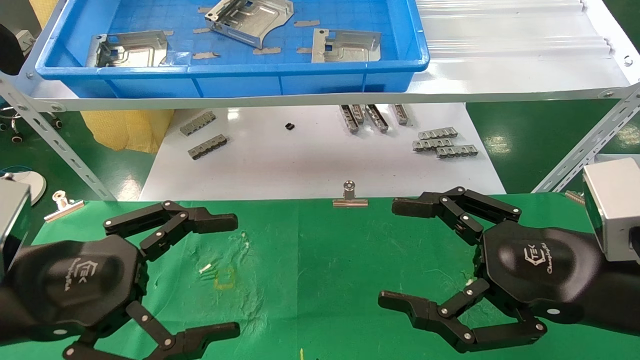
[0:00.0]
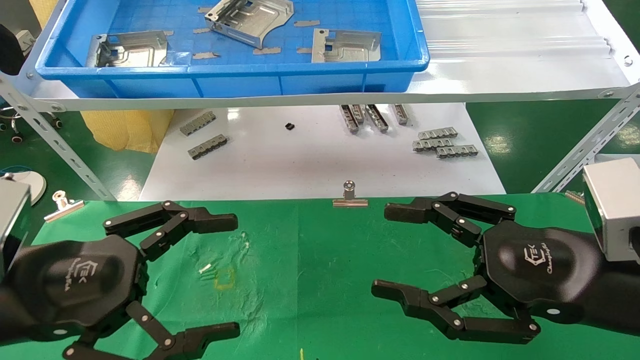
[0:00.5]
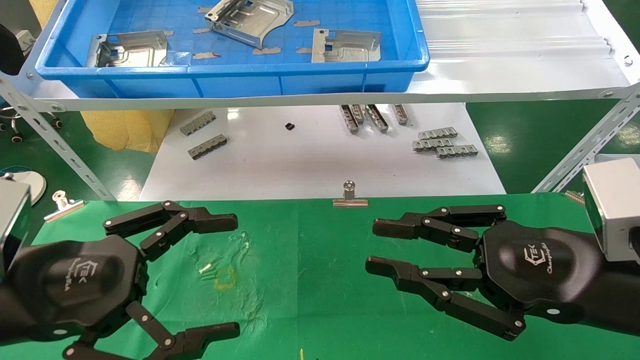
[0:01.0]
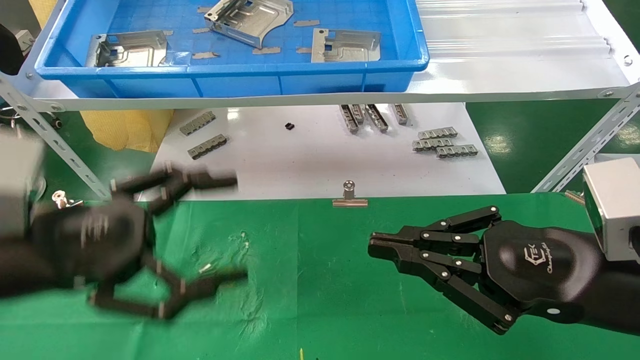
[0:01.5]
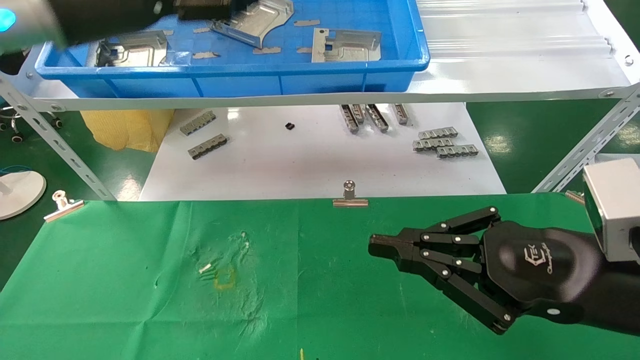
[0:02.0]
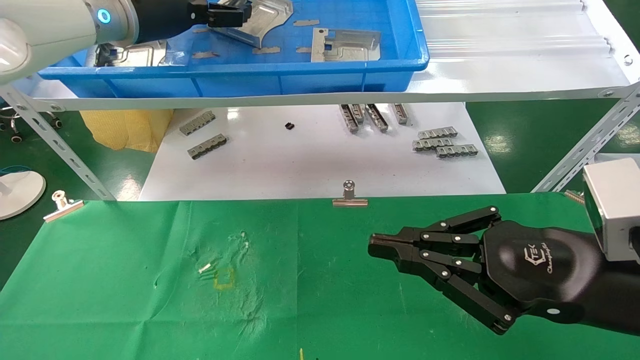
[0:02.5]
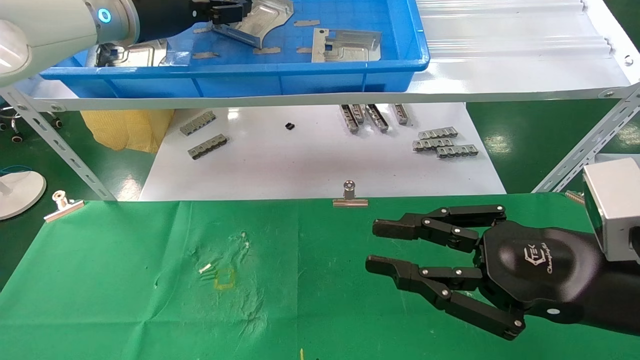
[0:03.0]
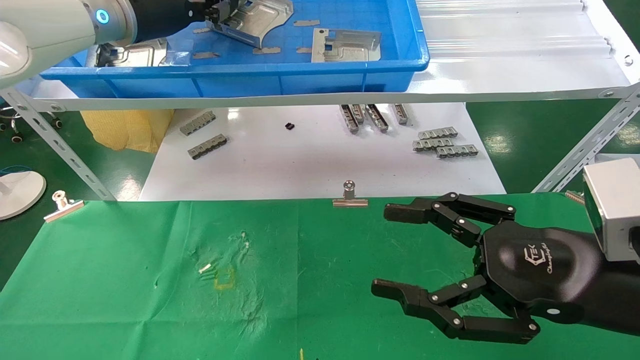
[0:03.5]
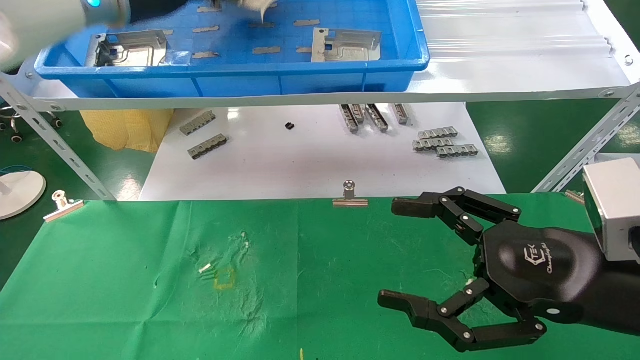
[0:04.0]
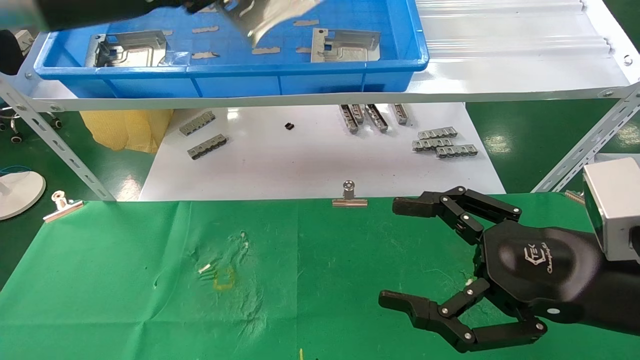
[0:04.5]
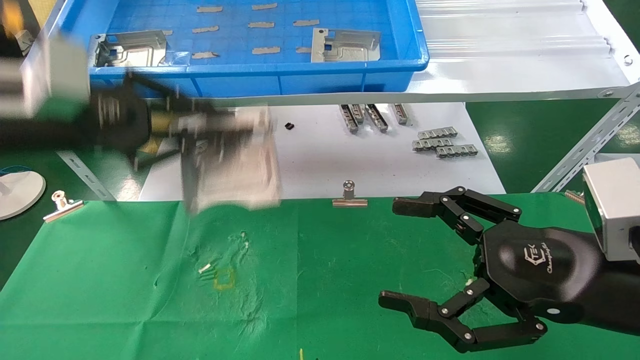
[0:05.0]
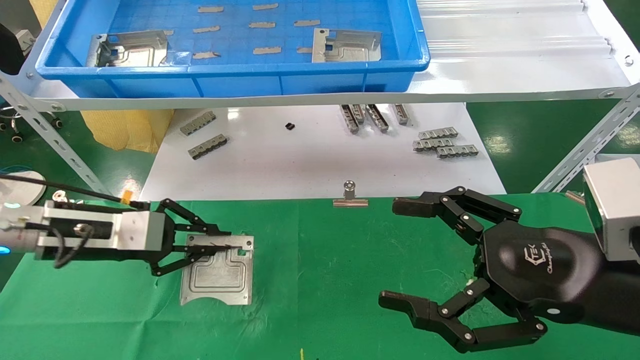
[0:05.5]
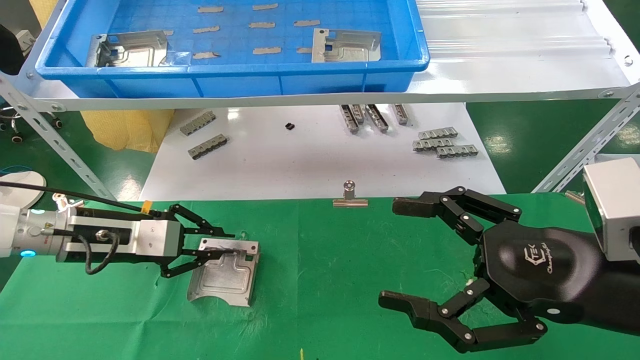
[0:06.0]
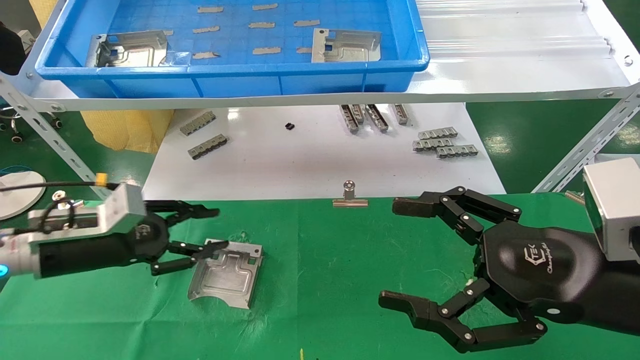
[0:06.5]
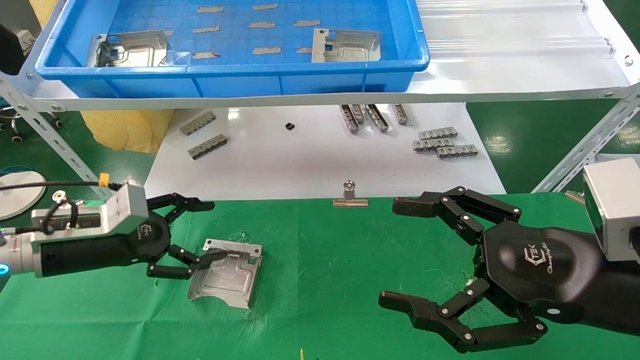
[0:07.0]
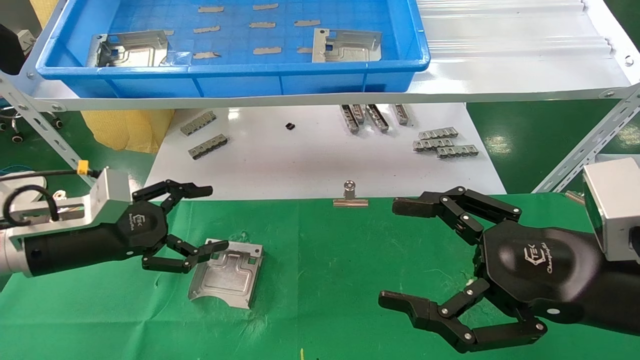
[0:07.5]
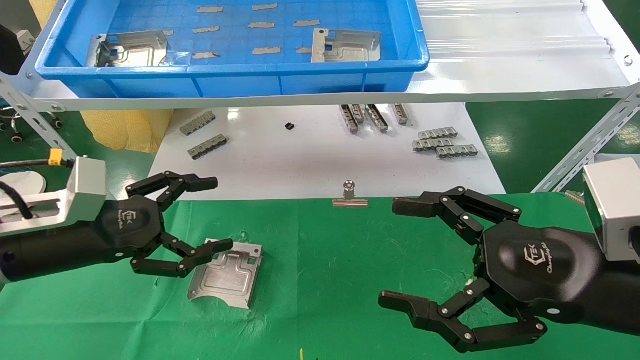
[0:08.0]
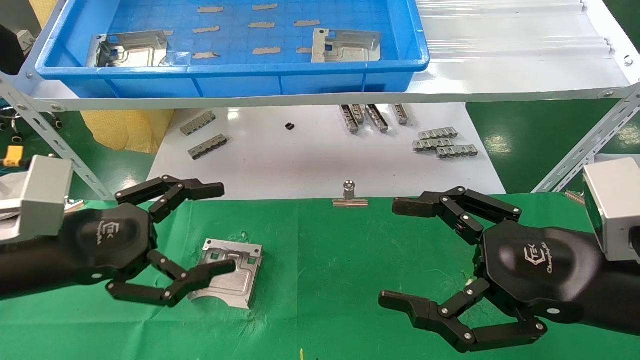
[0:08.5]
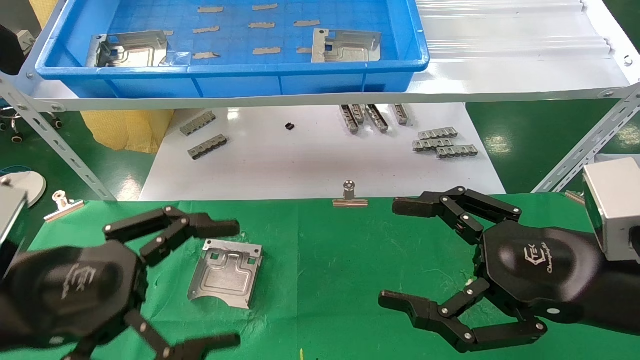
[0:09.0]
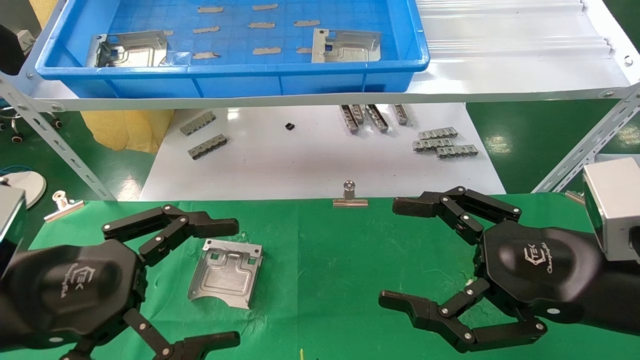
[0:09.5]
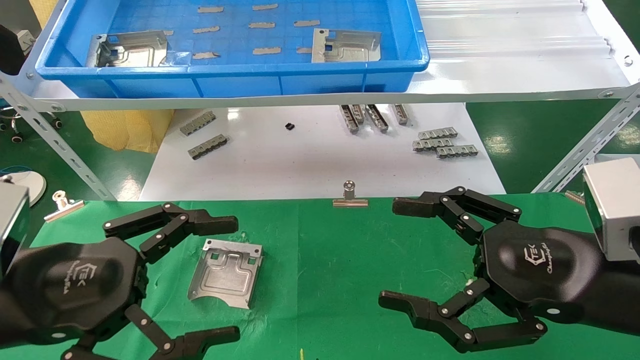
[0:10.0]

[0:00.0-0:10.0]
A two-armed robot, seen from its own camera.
Task of the whole recording: use the mechanical arm to pick up the parts and place them on the table.
Step, 0:02.0 to 0:03.5: Pick up the hard drive bracket from the feeding area.
Step, 0:04.0 to 0:06.5: Place the hard drive bracket into the box.
0:00.0 to 0:02.0: The right gripper closes up, while the left gripper goes roughly 30 cm upward and forward.
0:02.0 to 0:04.0: The left gripper ends up roughly 5 cm from where it was, and closes up. Meanwhile the right gripper opens its fingers.
0:04.0 to 0:06.0: The left gripper is displaced downward by some 30 cm.
0:06.0 to 0:08.0: The left gripper moves backward, approximately 5 cm, and opens up.
0:08.0 to 0:10.0: The left gripper travels backward by about 10 cm.
